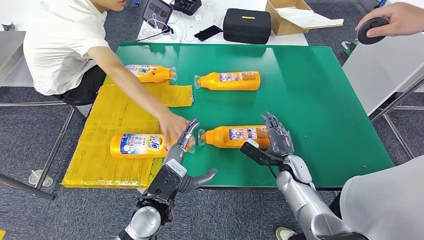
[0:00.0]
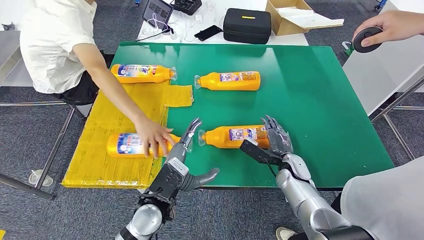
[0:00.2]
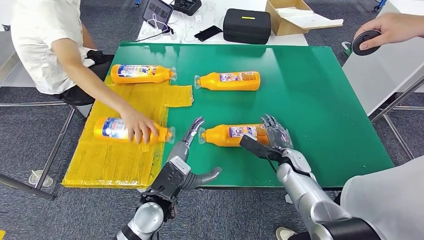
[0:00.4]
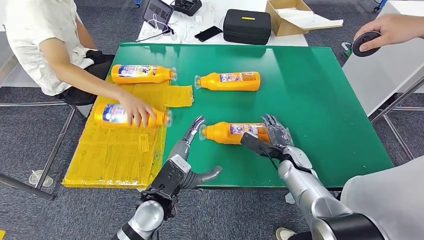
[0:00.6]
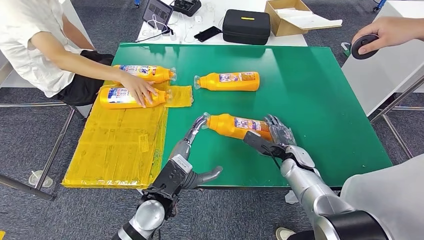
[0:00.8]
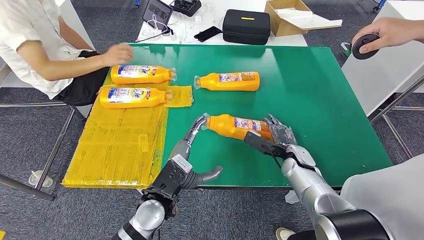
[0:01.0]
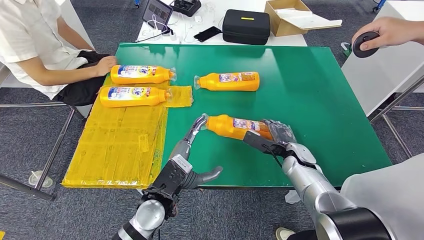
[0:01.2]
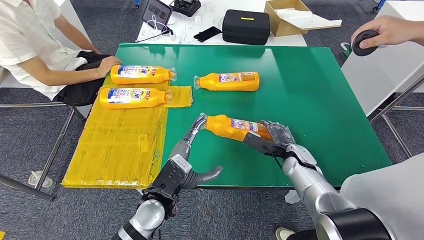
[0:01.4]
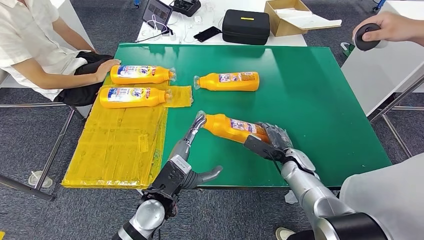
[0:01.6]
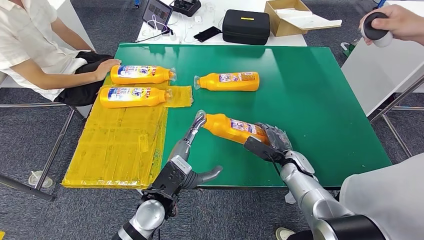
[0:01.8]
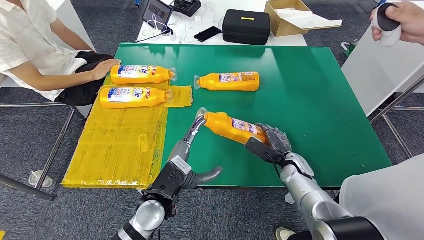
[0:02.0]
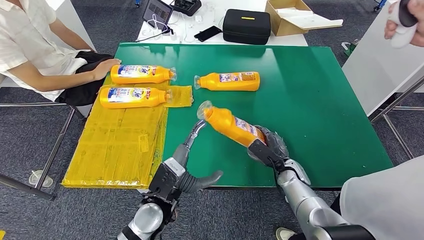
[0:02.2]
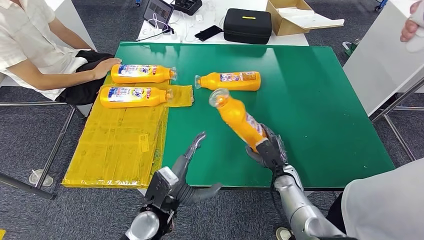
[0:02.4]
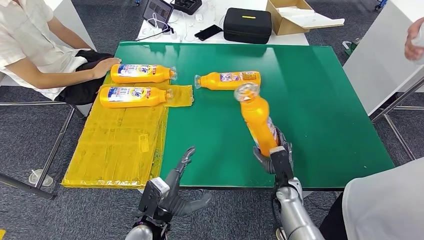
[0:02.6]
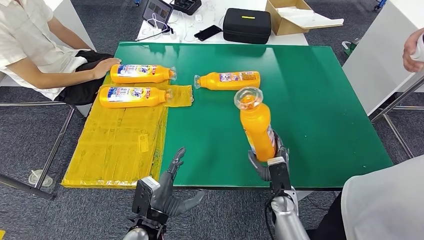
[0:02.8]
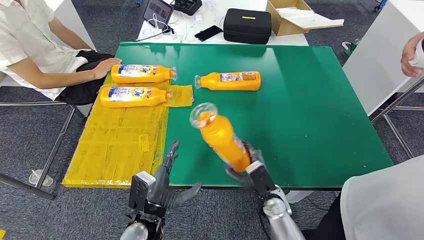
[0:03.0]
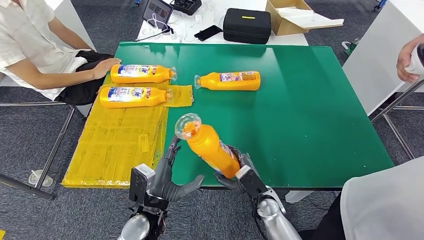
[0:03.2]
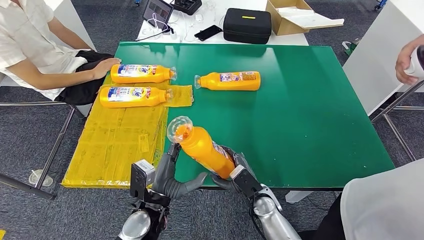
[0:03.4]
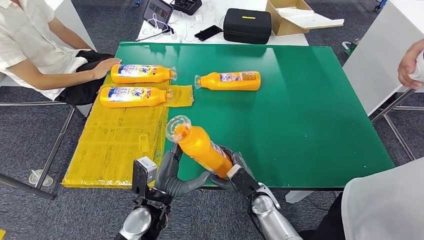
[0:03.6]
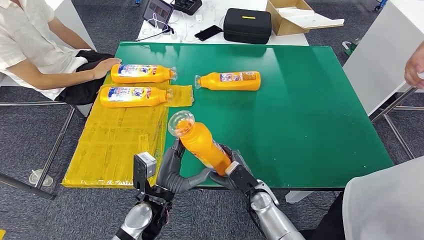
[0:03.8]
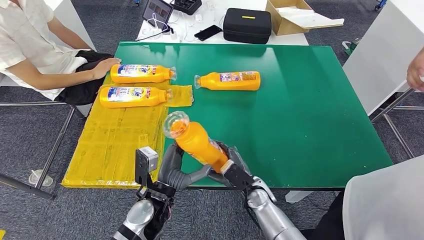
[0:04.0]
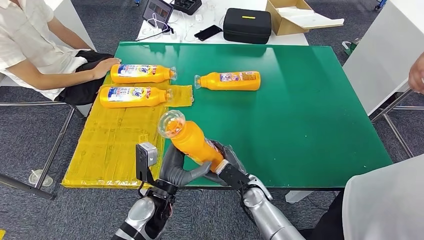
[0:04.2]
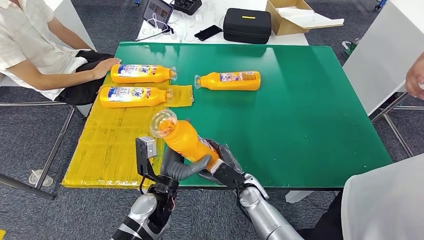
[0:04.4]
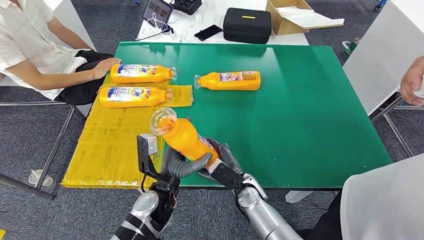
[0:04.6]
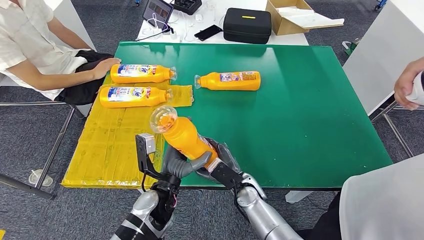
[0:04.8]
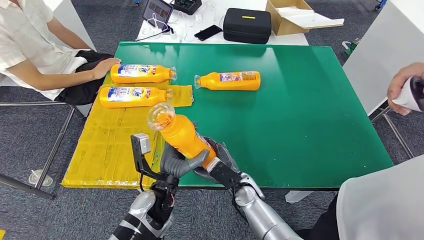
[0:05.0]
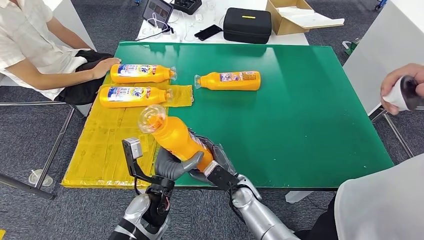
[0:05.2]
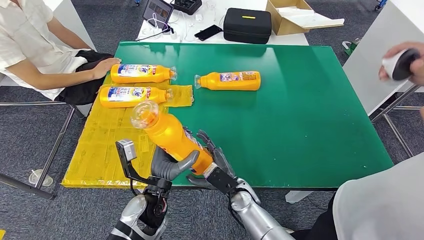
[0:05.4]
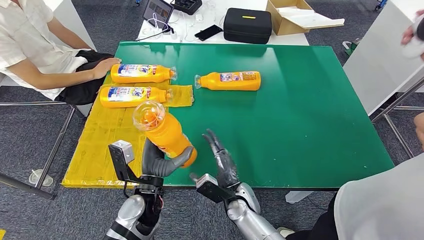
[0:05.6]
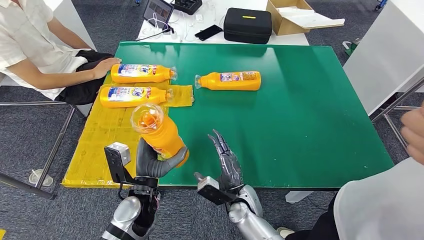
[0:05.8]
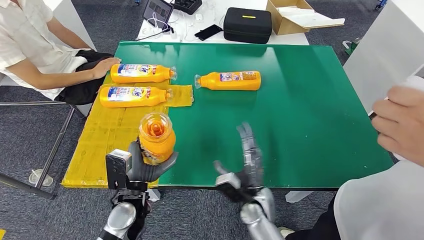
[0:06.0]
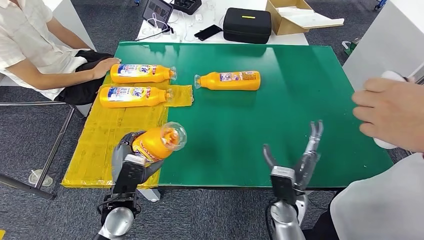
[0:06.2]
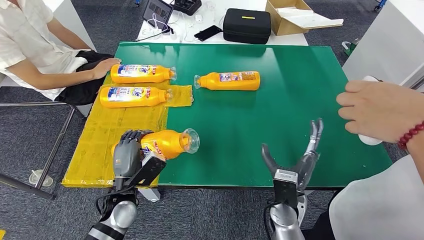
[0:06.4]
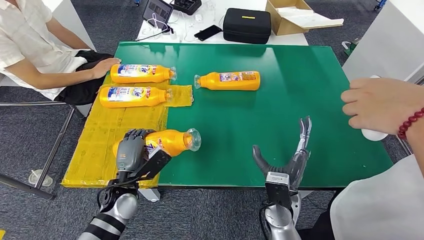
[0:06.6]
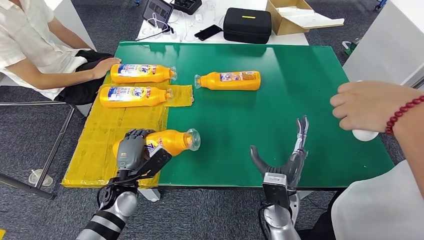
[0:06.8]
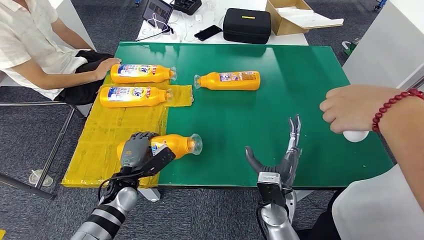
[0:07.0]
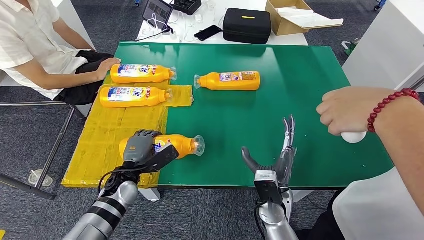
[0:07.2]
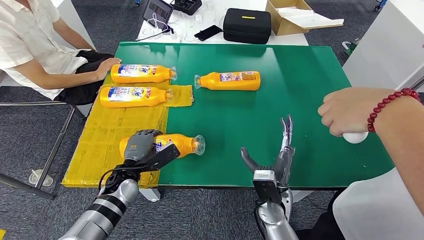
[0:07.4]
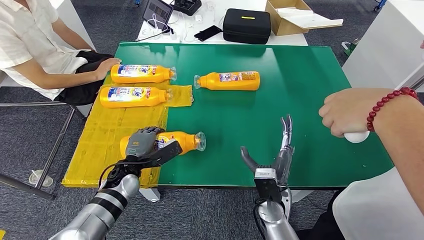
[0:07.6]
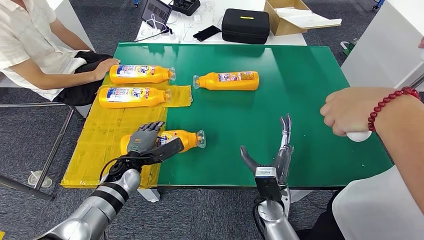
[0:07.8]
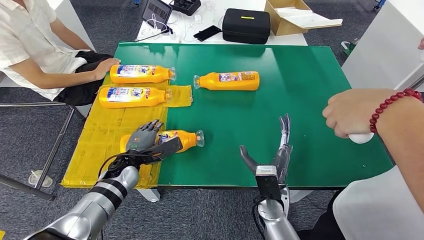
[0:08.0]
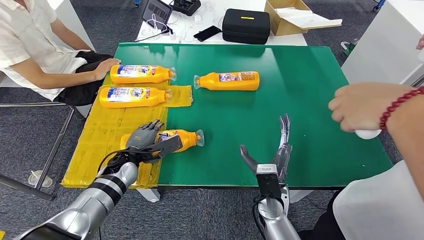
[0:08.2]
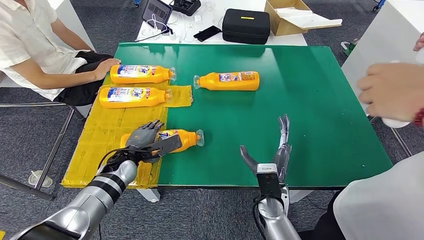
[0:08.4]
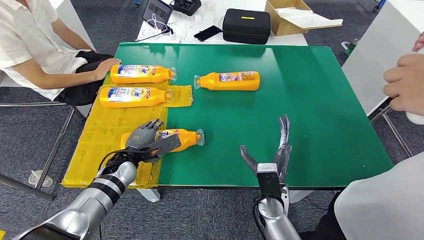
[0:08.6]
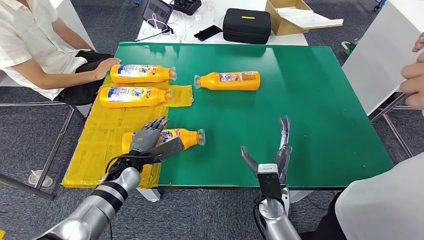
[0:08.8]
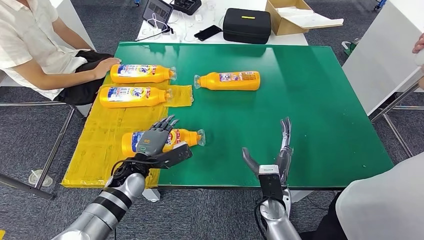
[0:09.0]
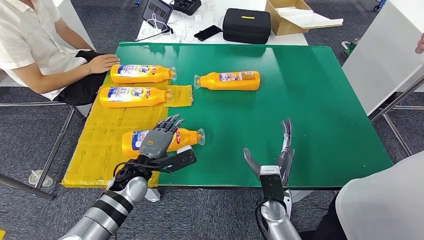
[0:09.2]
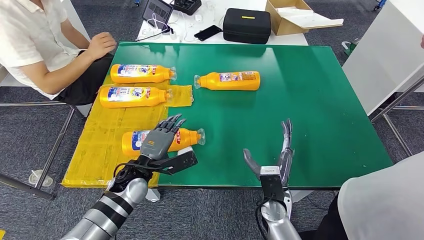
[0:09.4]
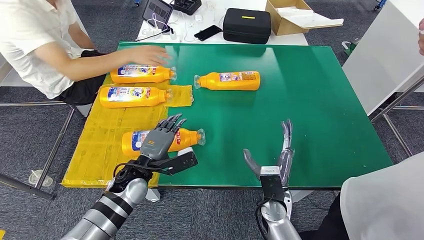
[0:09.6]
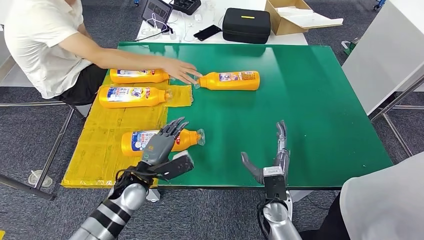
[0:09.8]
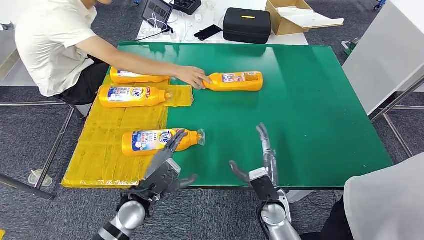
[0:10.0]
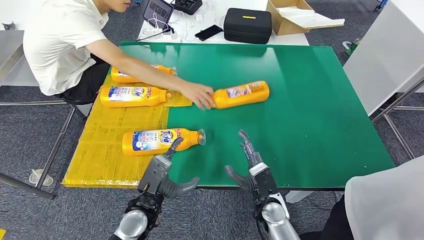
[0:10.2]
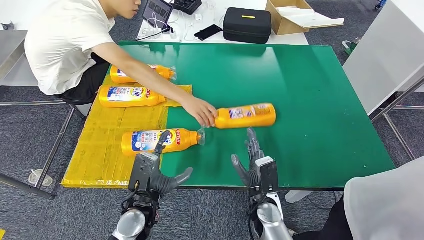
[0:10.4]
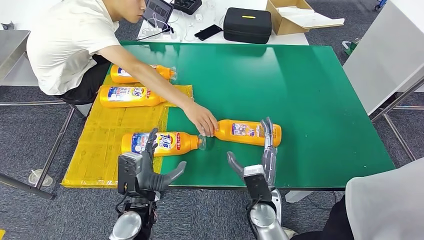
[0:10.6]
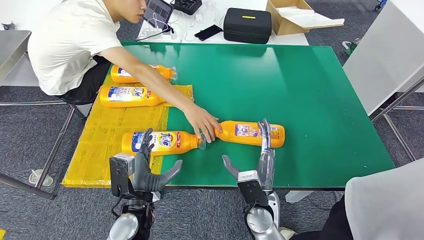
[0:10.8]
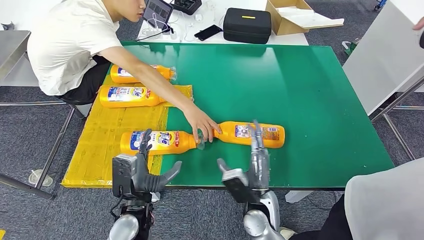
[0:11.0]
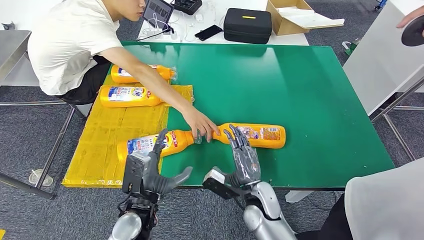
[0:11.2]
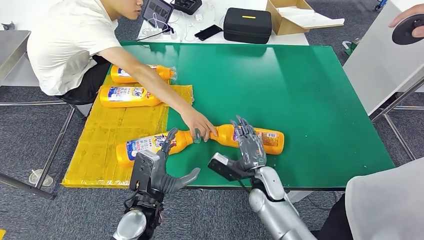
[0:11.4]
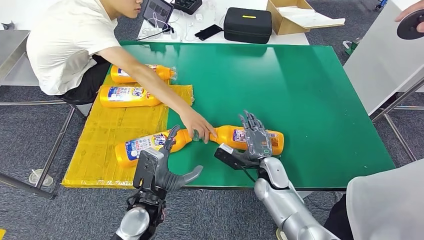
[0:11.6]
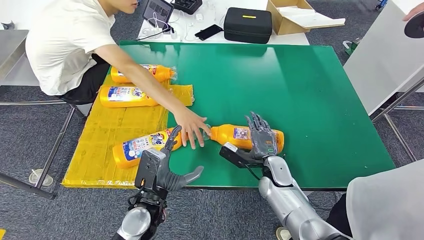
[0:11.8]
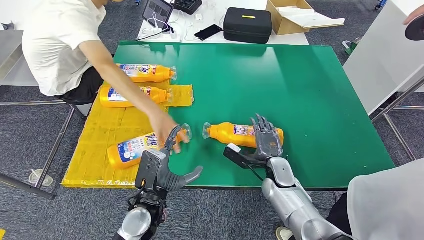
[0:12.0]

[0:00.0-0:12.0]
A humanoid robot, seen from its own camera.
Step, 0:01.4 to 0:03.2: Pick up the bottle from the table.
Step, 0:03.4 to 0:07.6: Flip the bottle to face forward.
0:03.0 to 0:04.4: The left hand shifts about 5 cm forward. Meanwhile the right hand moves to the left, about 5 cm.
0:04.4 to 0:06.0: The left hand is displaced to the left by roughly 5 cm.
0:07.6 to 0:09.0: There are only small adjustments of the hands.
0:10.4 to 0:12.0: The right hand moves forward and to the right, approximately 10 cm.

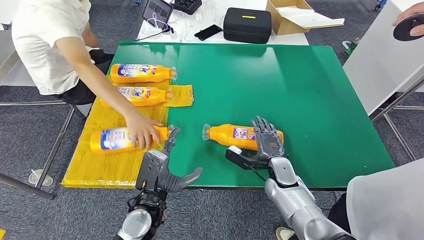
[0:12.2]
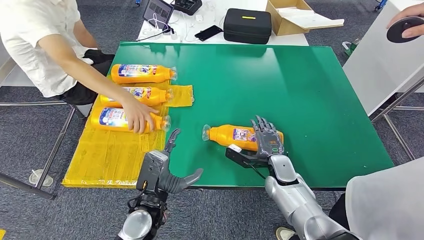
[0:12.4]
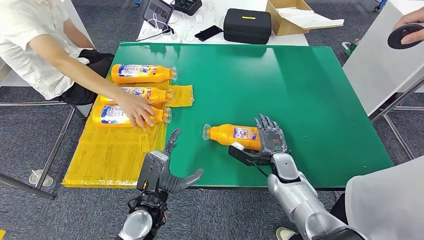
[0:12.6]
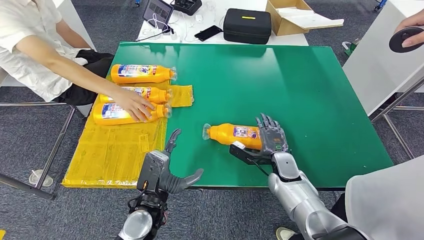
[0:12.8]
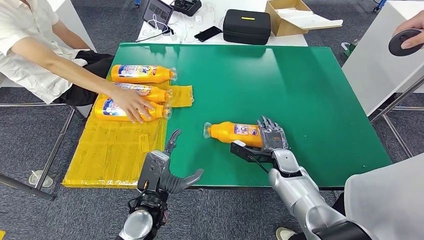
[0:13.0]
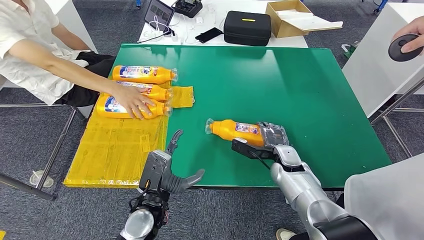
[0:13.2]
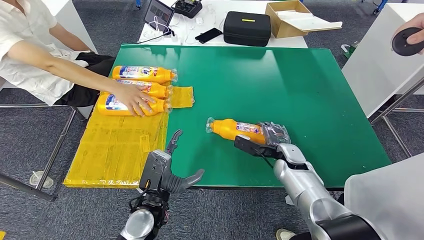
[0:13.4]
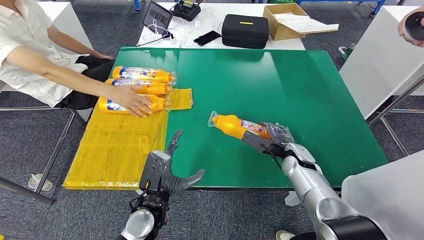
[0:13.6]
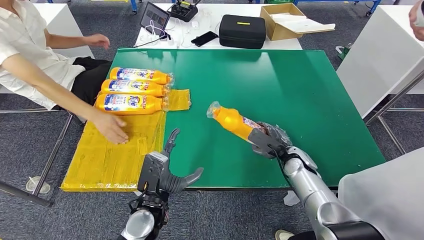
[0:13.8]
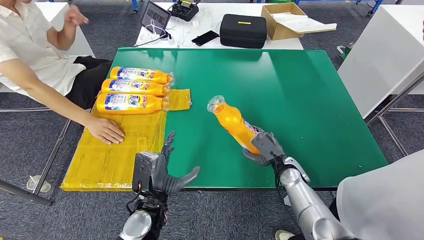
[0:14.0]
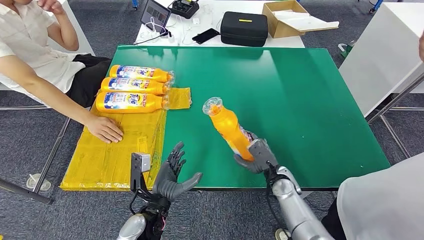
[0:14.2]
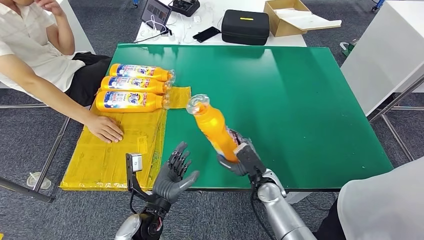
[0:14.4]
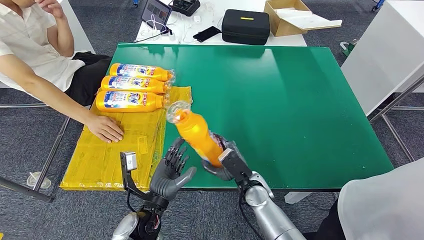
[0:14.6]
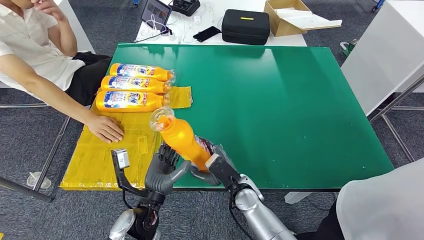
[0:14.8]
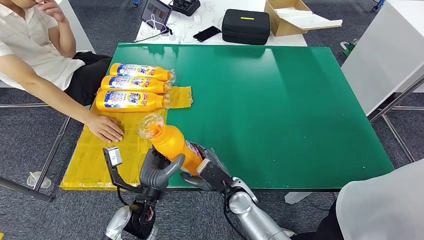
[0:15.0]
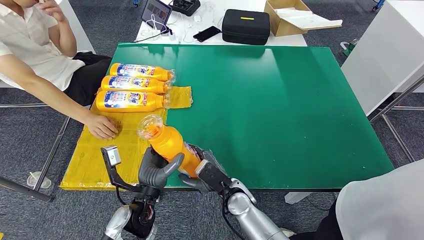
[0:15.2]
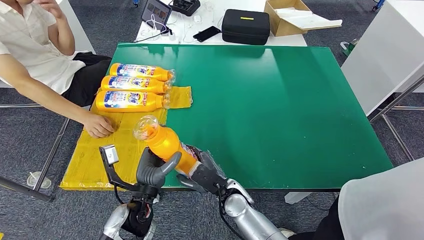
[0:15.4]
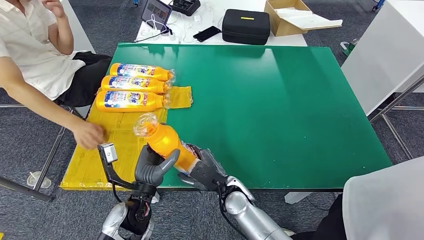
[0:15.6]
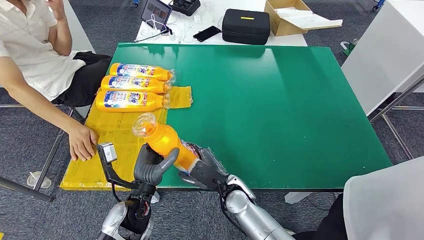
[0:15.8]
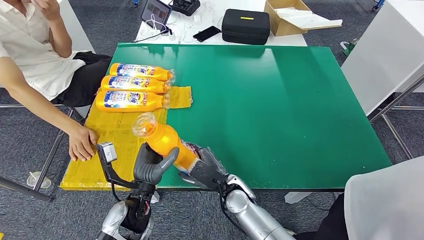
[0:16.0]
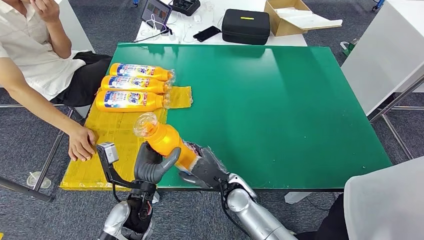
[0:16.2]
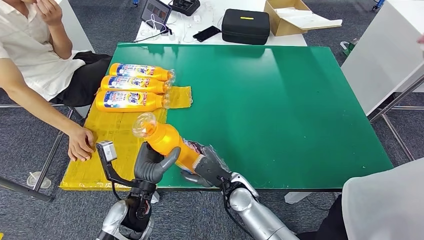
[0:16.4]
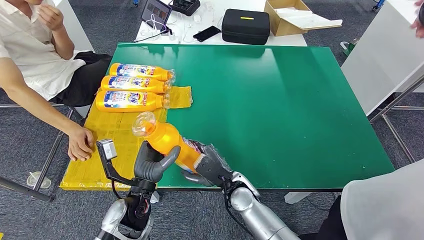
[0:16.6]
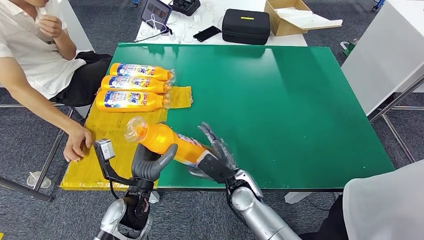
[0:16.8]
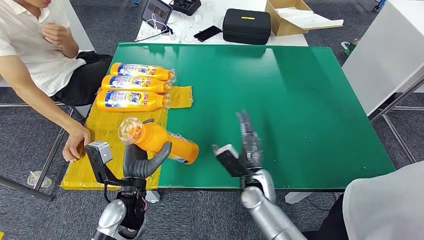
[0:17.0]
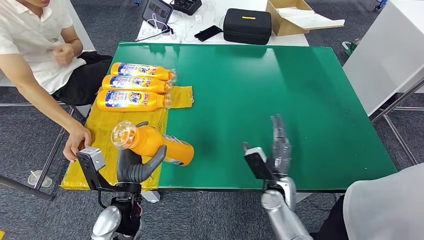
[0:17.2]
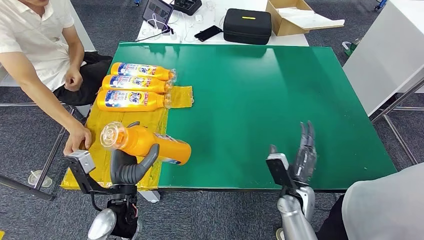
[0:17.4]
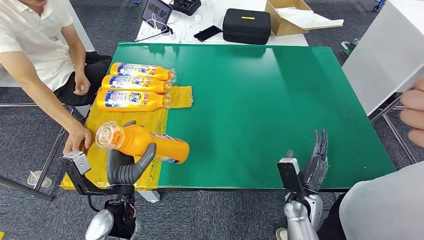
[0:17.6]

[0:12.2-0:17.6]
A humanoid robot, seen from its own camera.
Step, 0:12.2 to 0:14.8: Pick up the bottle from the table.
0:15.0 to 0:16.2: The hands stay close to where they were, moving slightly.
